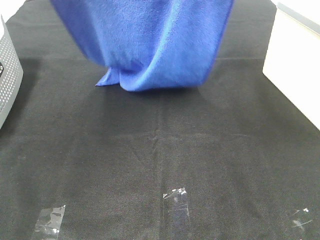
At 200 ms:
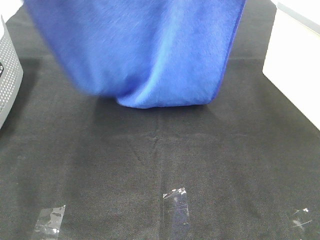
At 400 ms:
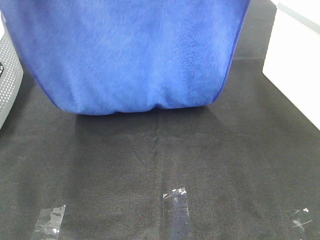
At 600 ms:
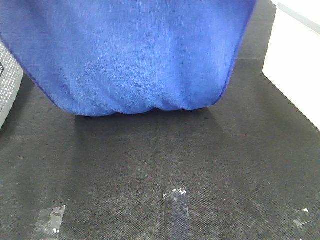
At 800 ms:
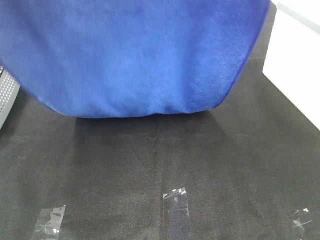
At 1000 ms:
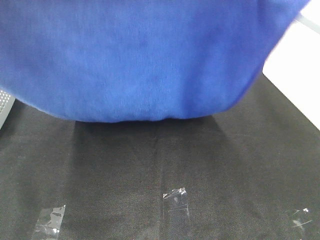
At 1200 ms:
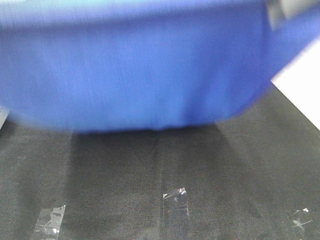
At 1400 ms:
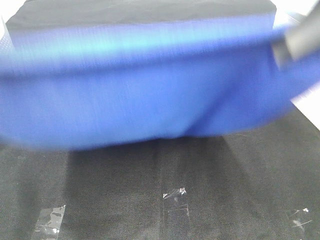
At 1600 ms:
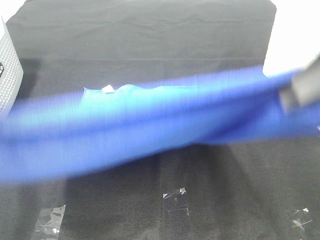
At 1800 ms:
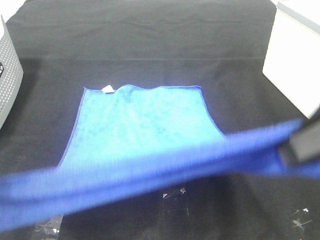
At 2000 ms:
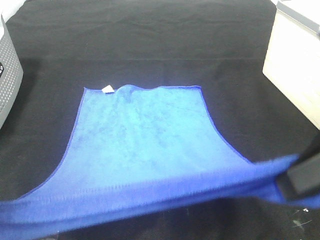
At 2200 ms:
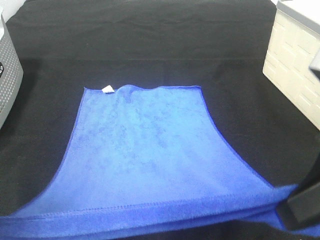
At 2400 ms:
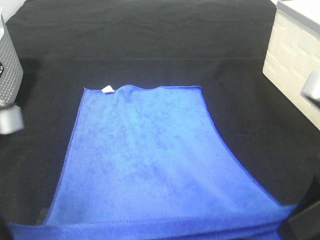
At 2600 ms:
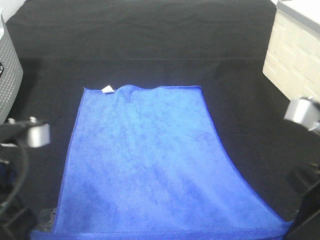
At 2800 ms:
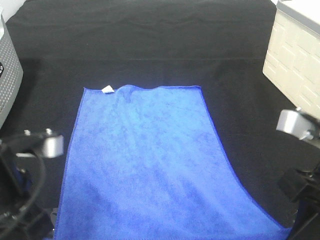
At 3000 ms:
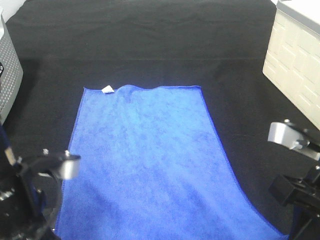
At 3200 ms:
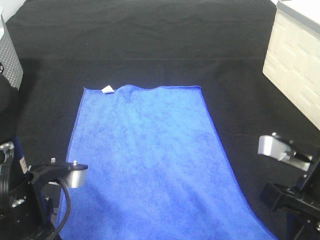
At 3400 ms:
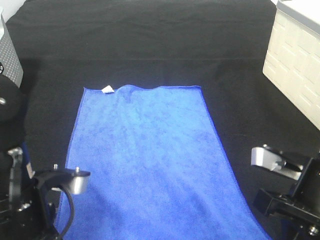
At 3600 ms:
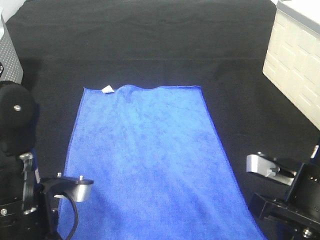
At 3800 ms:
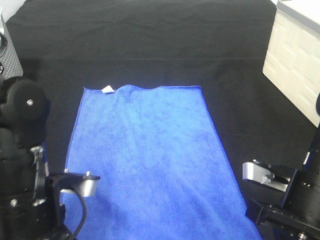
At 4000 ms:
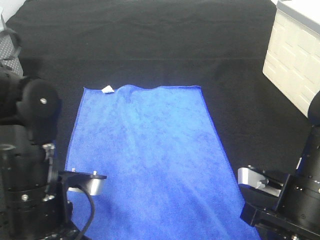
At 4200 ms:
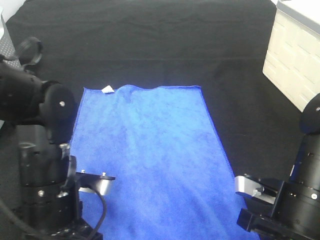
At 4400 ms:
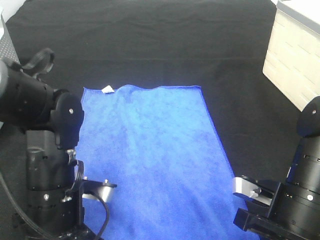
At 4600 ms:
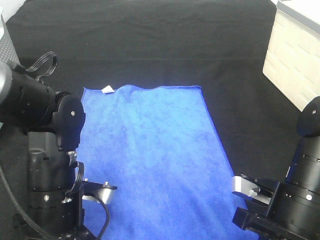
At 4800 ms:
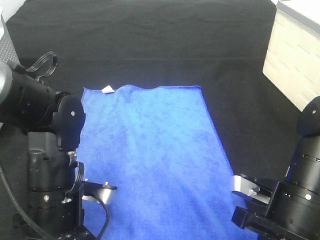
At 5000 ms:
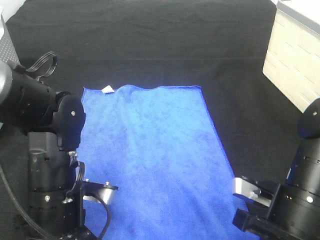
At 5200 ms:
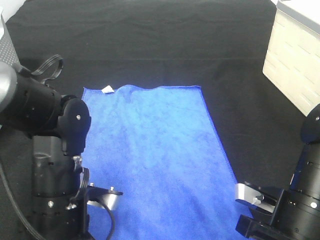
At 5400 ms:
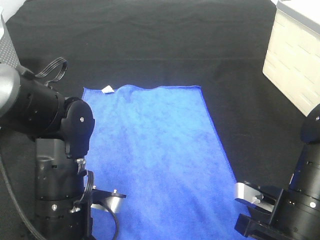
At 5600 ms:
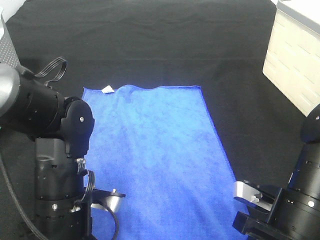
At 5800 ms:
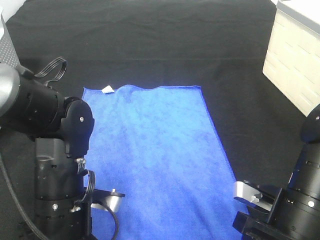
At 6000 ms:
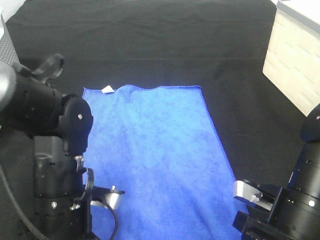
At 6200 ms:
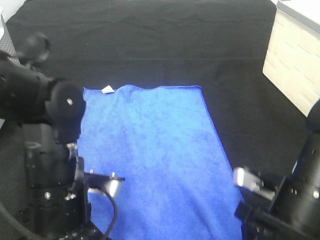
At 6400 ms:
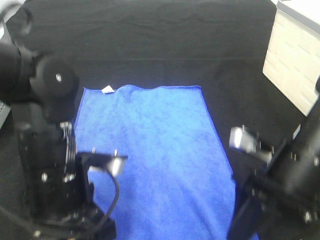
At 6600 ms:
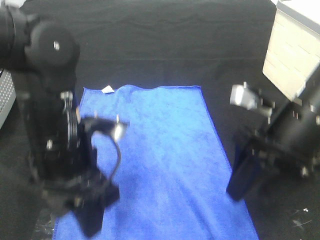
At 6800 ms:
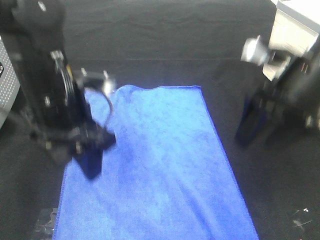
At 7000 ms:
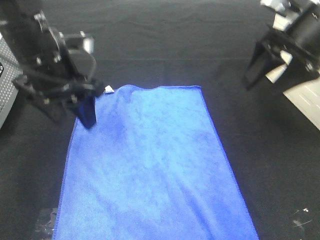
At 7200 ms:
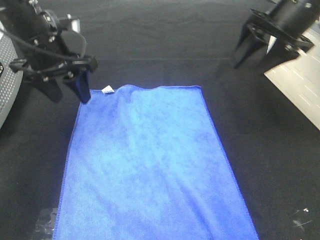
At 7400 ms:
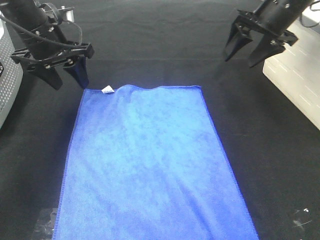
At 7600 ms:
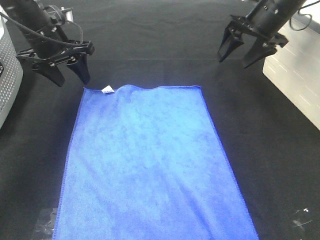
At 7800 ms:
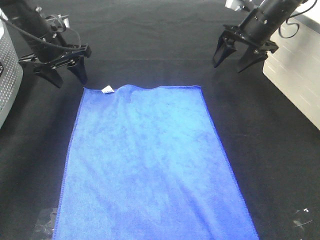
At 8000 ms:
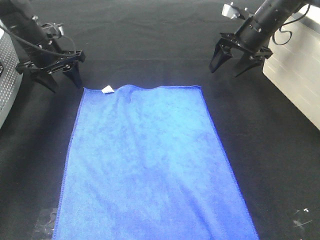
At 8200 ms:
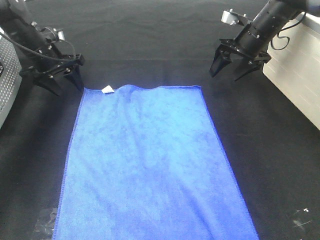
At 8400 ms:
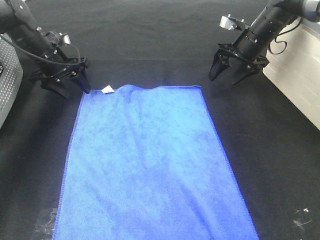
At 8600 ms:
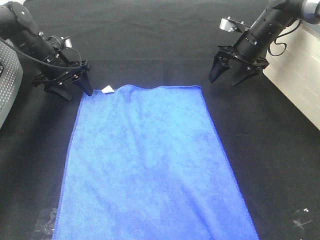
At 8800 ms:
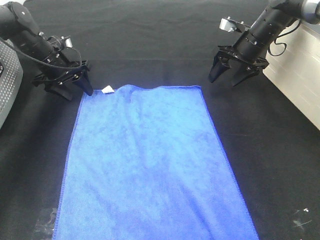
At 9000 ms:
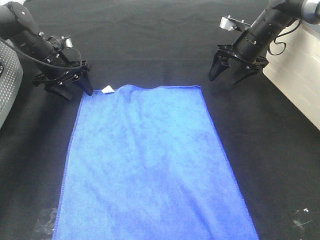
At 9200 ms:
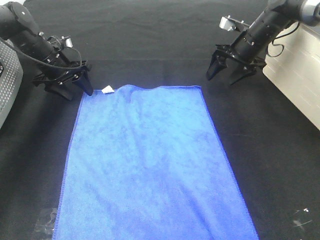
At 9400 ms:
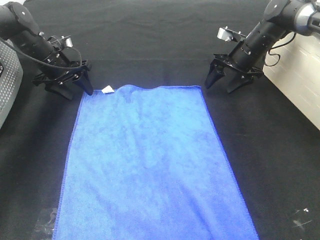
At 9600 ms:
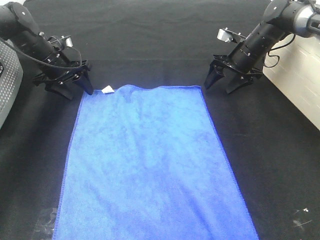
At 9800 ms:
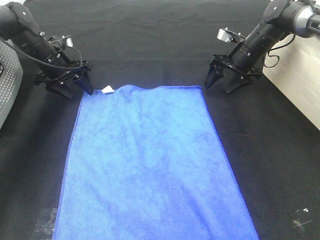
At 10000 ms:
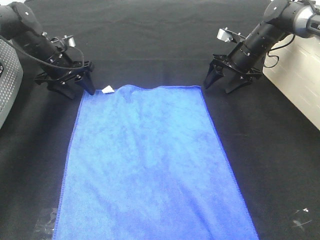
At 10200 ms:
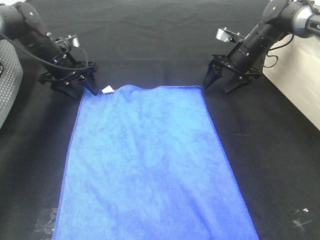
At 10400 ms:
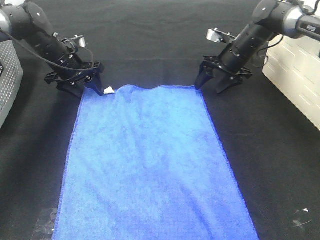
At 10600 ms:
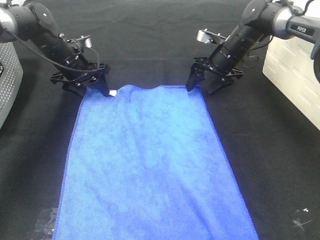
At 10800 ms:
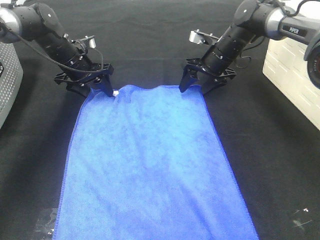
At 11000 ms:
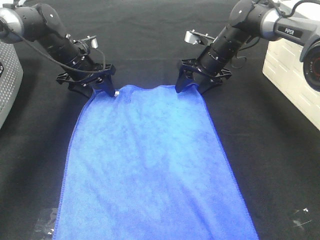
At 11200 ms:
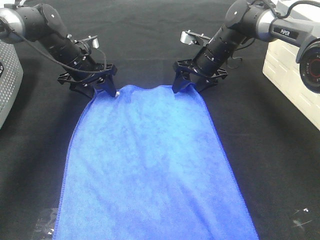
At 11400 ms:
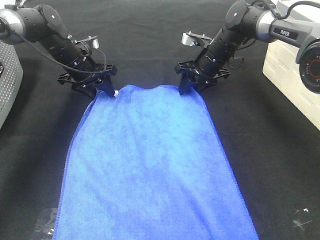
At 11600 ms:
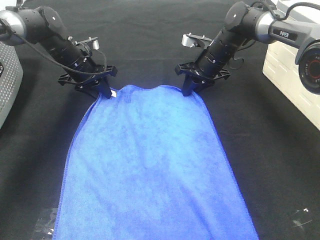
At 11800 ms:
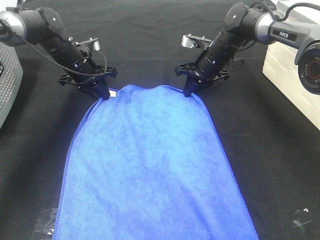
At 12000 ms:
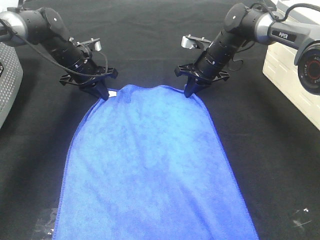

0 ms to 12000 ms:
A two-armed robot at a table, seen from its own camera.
Task of the whole recording: Remove the towel and place it.
Step, 1400 ms to 9200 ms: Left hand:adjust the blue towel.
Step, 1400 ms to 9200 ms: Right hand:adjust the blue towel.
0 ms to 1600 ms: Both grippers travel together backward and downward, about 20 cm.
1600 ms to 3000 ms: The right gripper heads downward, covering some 15 cm, while the left gripper moves downward and to the right, some 15 cm.
3000 ms to 4400 ms: Both grippers move downward, approximately 10 cm.
4400 ms to 6000 ms: The right gripper opens up. Meanwhile the left gripper opens up.
6000 ms to 7600 ms: The left gripper travels forward by roughly 30 cm, while the right gripper heads forward and upward, covering some 35 cm.
7600 ms to 9000 ms: The right gripper shifts about 10 cm downward, while the left gripper travels downward and forward by about 10 cm.
9000 ms to 10400 ms: The right gripper moves some 5 cm.
10400 ms to 12000 ms: The left gripper closes its fingers, while the right gripper moves to the left, roughly 5 cm, and closes up.

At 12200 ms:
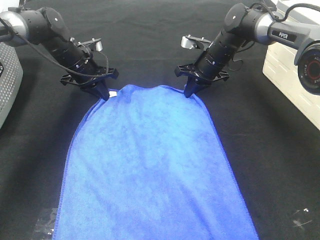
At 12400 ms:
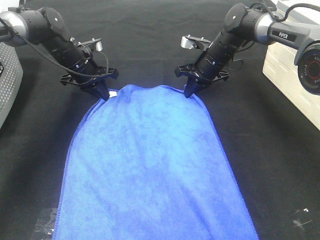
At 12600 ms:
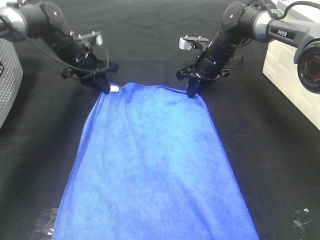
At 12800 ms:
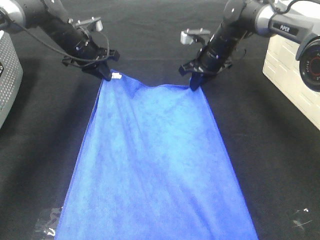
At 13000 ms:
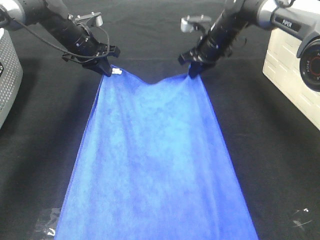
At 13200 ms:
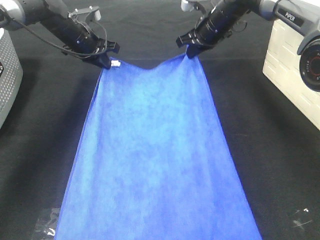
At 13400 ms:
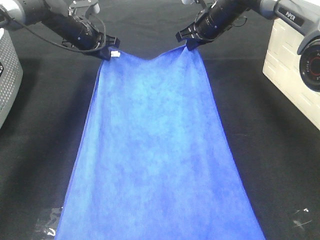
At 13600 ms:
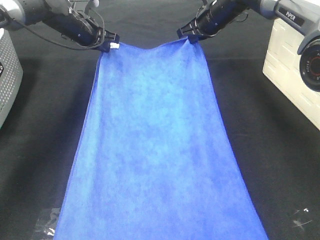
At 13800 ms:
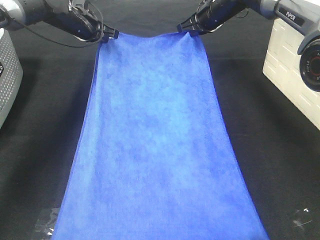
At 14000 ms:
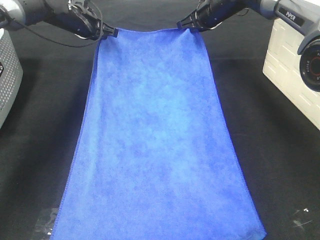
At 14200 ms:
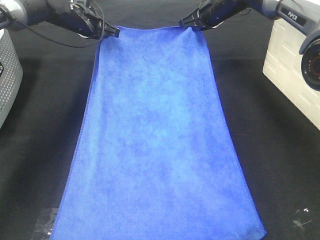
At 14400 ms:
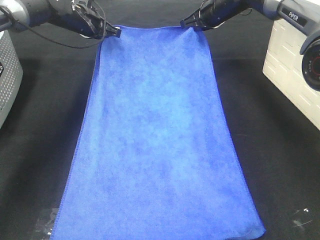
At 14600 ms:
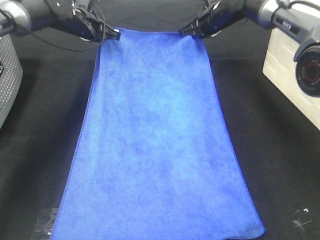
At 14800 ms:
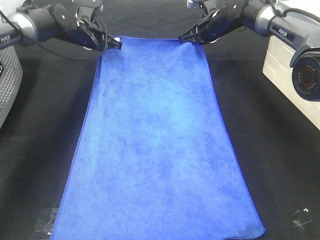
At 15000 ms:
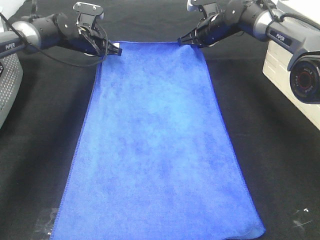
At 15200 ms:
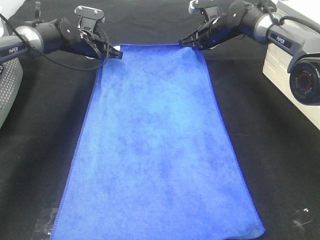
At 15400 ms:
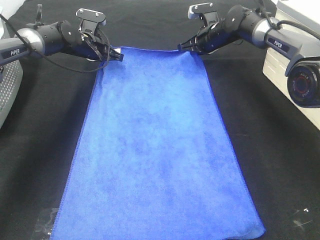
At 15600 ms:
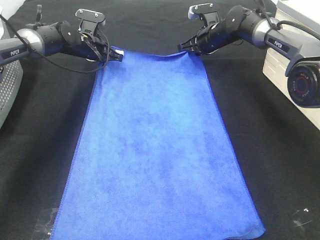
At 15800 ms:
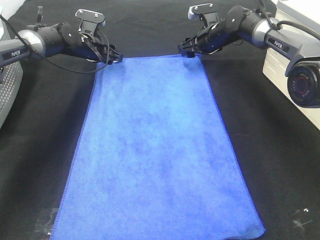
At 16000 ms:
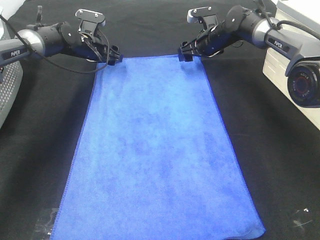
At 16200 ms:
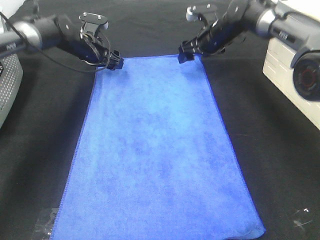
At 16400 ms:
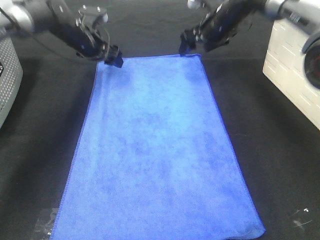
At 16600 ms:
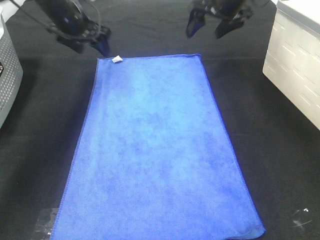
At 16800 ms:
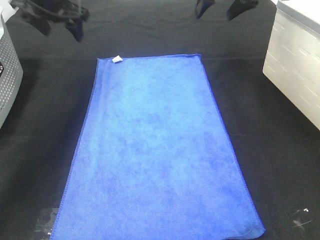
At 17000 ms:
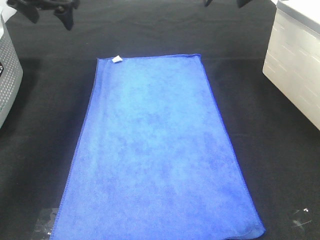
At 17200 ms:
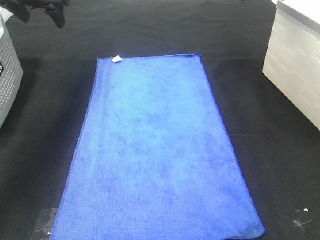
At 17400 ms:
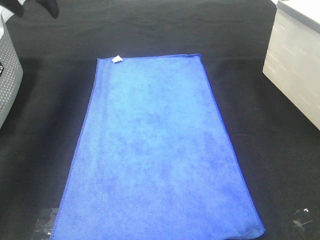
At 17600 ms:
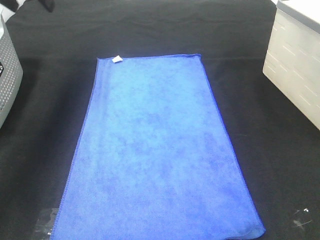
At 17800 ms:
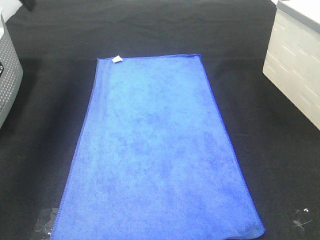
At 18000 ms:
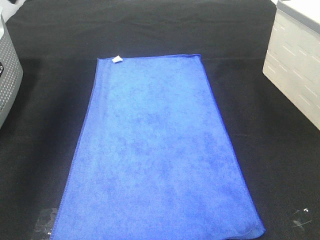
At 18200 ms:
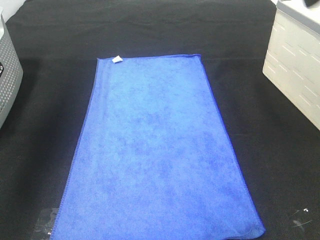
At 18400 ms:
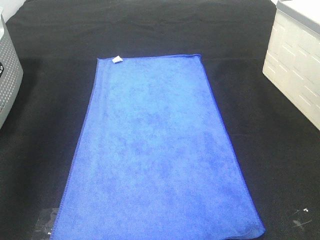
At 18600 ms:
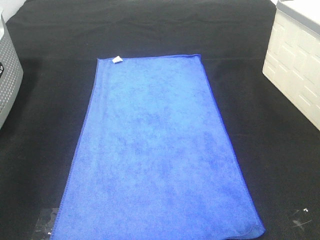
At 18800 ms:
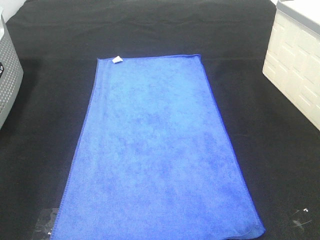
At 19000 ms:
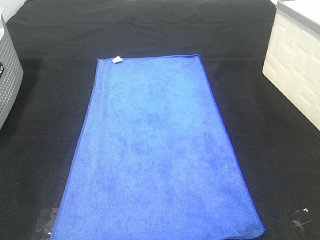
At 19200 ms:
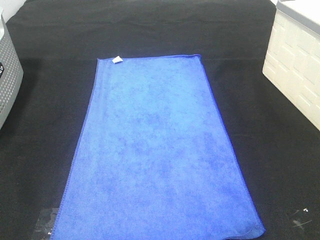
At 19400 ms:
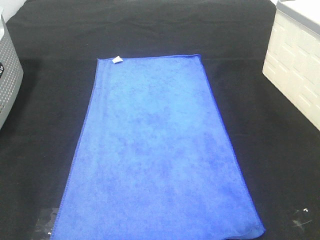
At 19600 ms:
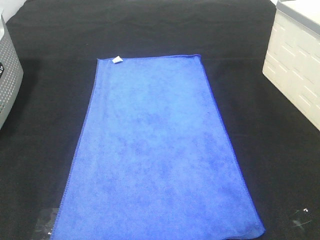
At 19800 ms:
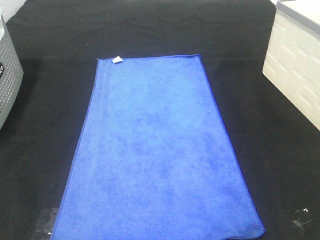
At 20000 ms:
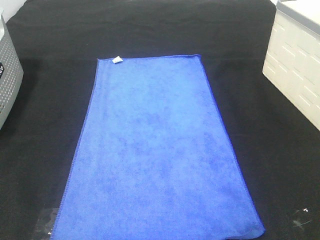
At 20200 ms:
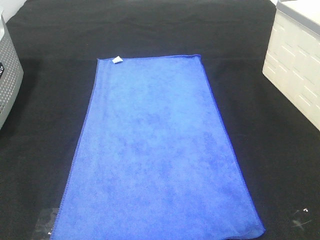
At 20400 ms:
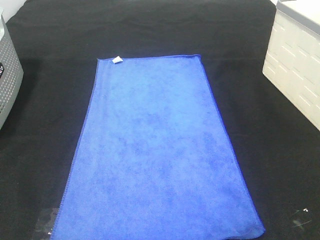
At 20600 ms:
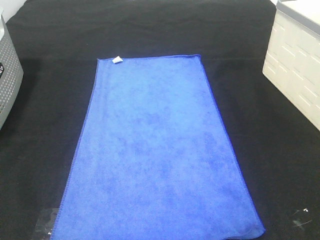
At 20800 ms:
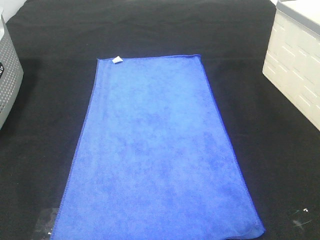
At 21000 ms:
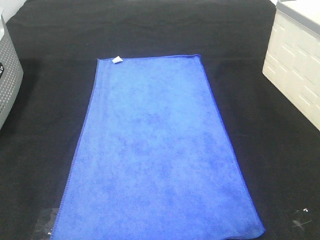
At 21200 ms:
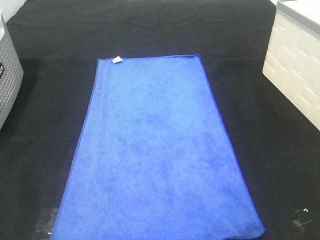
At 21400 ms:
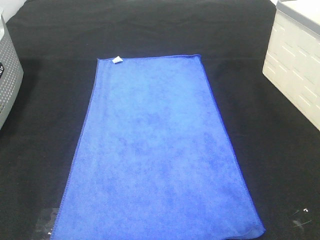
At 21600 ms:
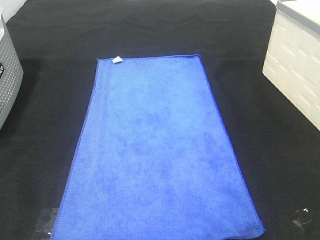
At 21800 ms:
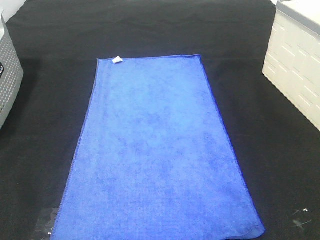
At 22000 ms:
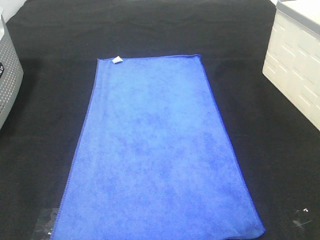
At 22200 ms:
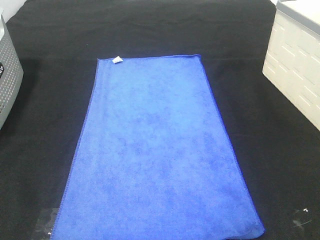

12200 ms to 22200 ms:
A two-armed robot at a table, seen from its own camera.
Task of the whole recording: Remove the towel and place it.
12200 ms to 13600 ms: The two grippers go approximately 10 cm upward.
13600 ms to 15000 ms: The left gripper changes place by about 5 cm. The right gripper shifts by roughly 5 cm.
15000 ms to 16400 ms: The right gripper travels upward by some 5 cm, and opens up, while the left gripper changes place by some 5 cm, and opens up.
16400 ms to 18000 ms: The left gripper shifts roughly 30 cm upward, backward and to the left; the right gripper goes approximately 35 cm backward and upward.
18000 ms to 19400 ms: Both grippers travel together backward, about 35 cm.
